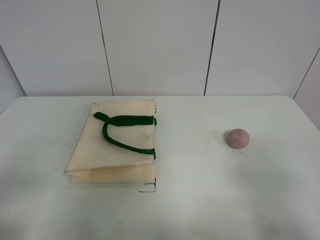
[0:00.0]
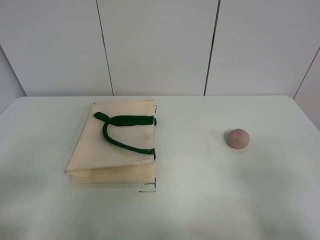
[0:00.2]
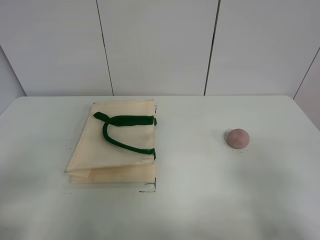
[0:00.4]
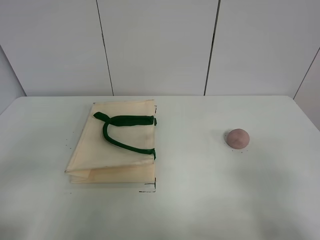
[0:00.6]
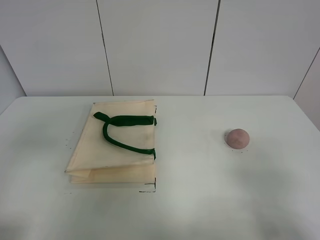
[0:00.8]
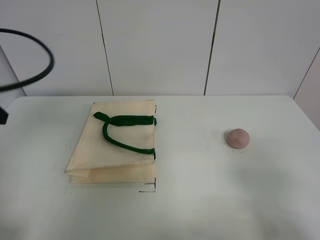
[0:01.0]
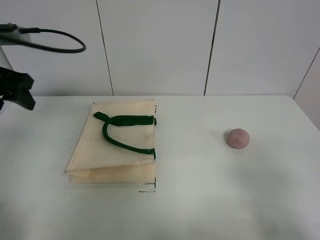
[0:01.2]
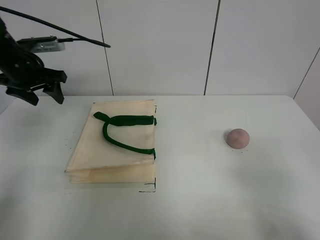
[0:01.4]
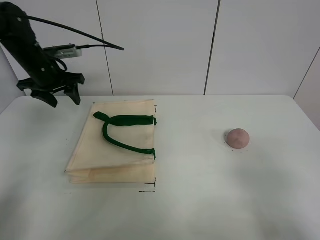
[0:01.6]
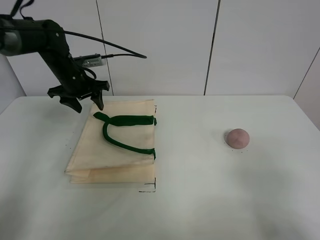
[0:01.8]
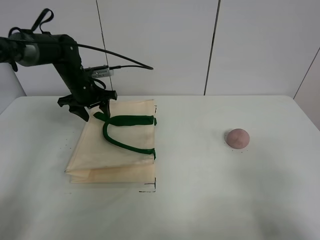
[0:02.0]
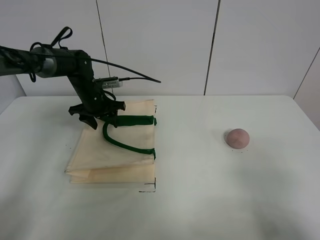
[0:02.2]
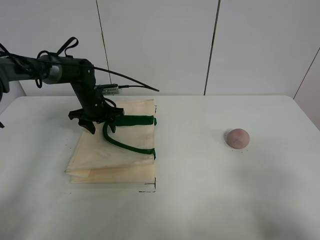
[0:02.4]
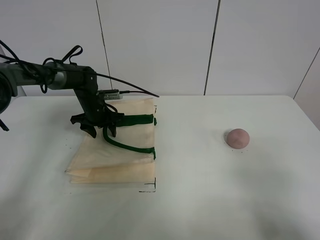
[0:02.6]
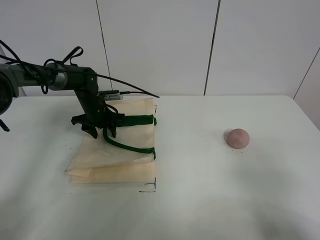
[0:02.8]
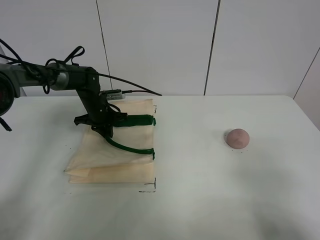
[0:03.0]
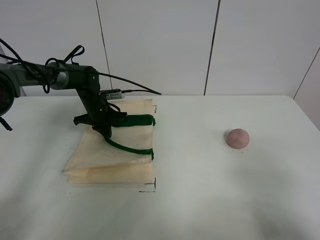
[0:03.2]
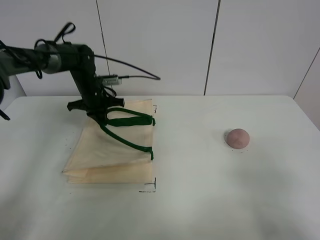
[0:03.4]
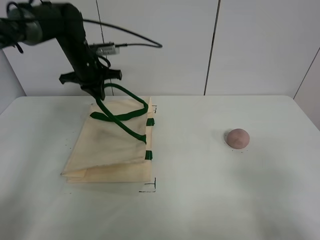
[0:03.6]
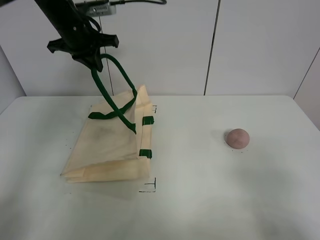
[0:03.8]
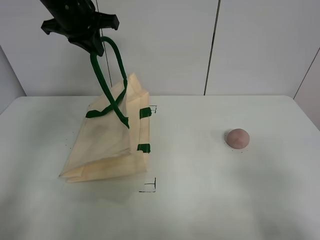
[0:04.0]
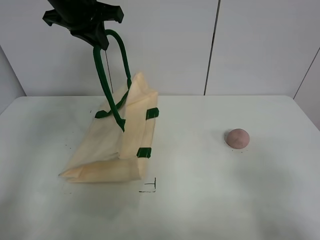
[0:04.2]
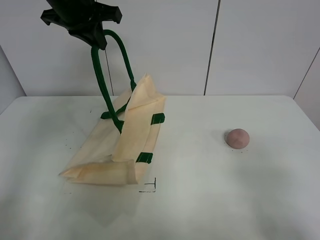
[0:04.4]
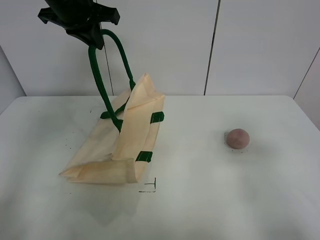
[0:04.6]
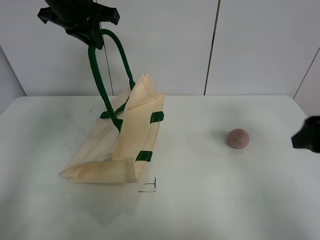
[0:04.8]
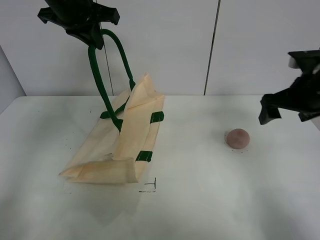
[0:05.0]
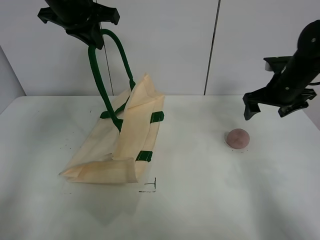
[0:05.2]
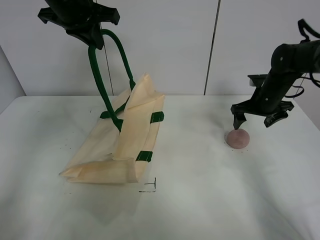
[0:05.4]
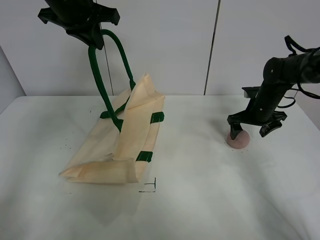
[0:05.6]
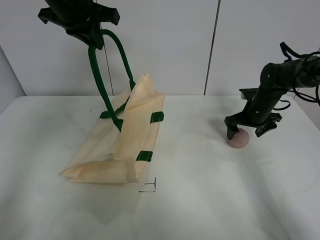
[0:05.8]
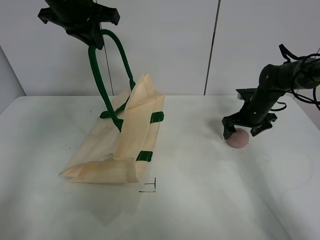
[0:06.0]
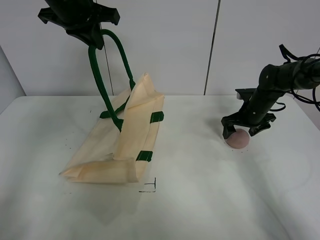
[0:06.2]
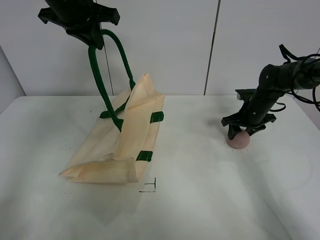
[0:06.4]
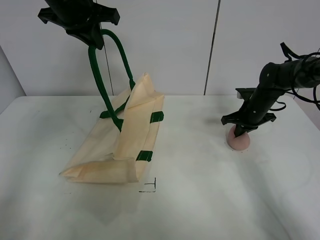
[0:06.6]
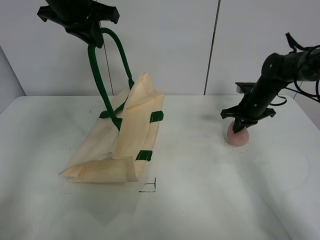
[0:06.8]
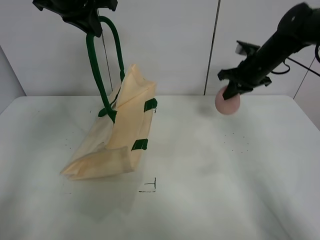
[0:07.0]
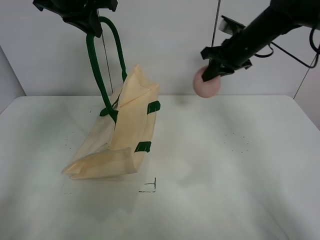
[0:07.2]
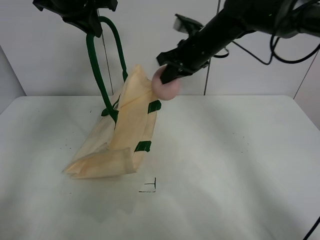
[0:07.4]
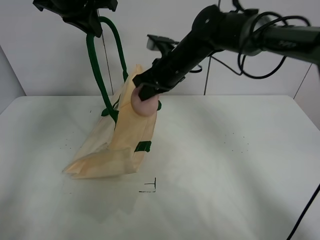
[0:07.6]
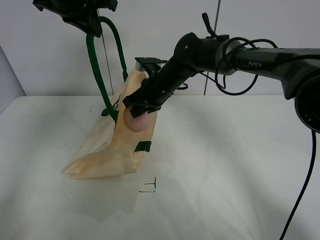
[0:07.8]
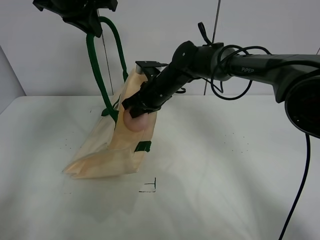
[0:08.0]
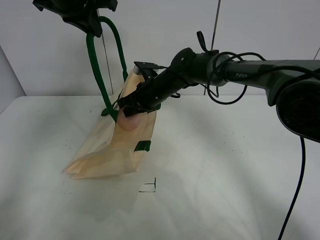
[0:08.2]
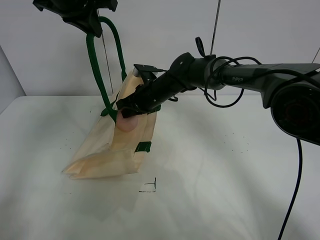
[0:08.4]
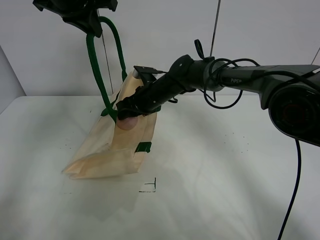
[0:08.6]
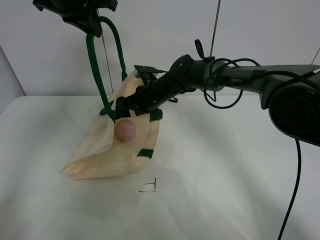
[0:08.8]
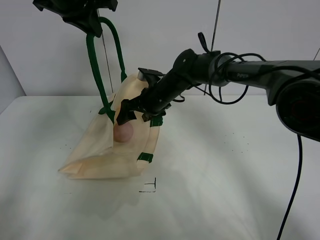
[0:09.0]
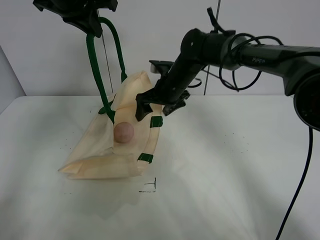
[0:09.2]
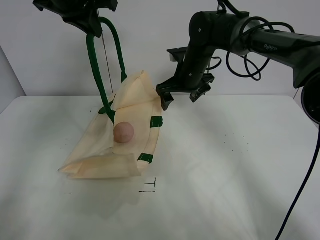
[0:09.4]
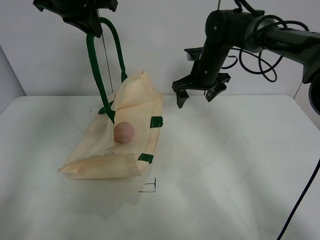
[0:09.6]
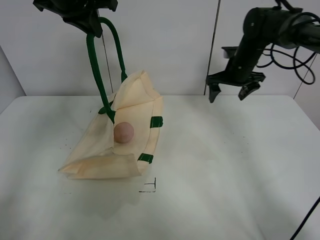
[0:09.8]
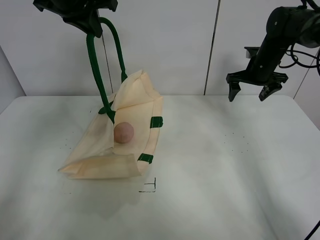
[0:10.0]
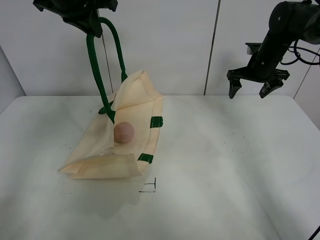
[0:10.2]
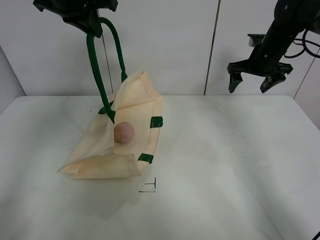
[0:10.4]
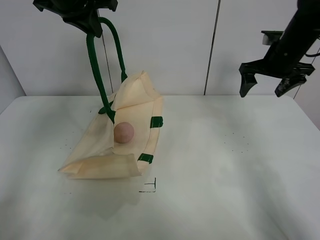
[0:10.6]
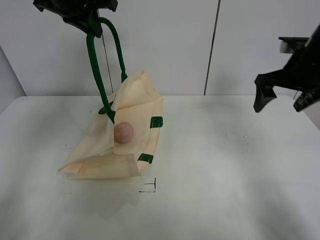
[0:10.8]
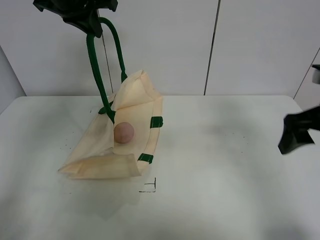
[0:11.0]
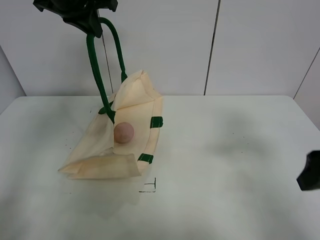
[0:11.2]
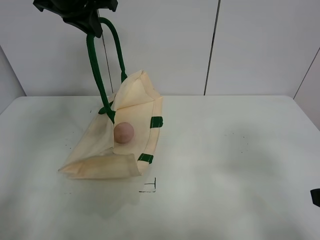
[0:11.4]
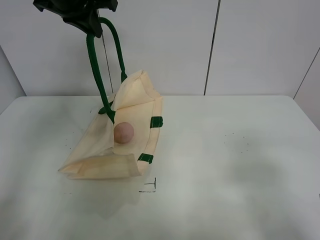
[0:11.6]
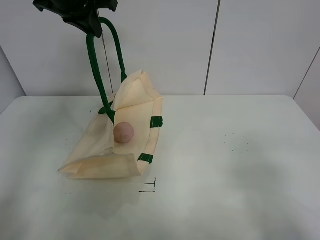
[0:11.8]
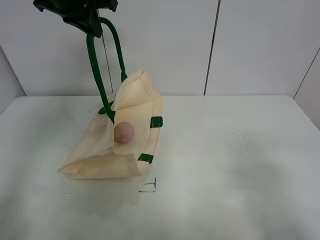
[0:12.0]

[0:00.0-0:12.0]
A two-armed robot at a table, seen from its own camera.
Task of the whole recording: open the white linen bag and put the peach in the bag.
Step, 0:00.0 to 0:04.4: Lift the handbag with left gripper.
Step, 0:04.6 to 0:06.6: Grasp the peach with right gripper.
Step, 0:06.8 to 0:09.2: Place the peach in the handbag with right gripper.
0:00.0 to 0:01.6: The left gripper moves forward, about 40 cm.
0:01.6 to 0:03.0: The left gripper goes some 15 cm downward and to the right, and closes up.
0:03.0 to 0:04.4: The left gripper shifts some 30 cm upward.
0:04.4 to 0:06.0: The right gripper moves forward, roughly 40 cm.
0:06.0 to 0:07.6: The right gripper is displaced to the left and upward by some 25 cm, and closes its fingers.
0:07.6 to 0:09.0: The right gripper travels downward by some 5 cm, and opens its fingers.
0:09.0 to 0:10.4: The right gripper shifts about 25 cm to the right.
0:10.4 to 0:12.0: The right gripper heads backward, covering some 40 cm.

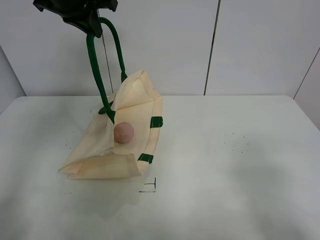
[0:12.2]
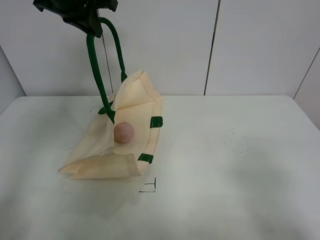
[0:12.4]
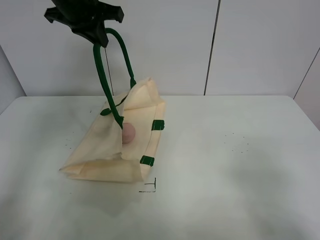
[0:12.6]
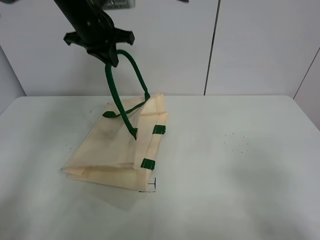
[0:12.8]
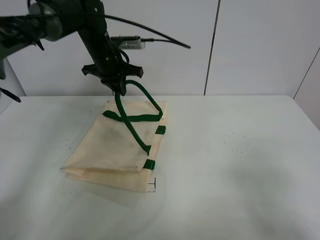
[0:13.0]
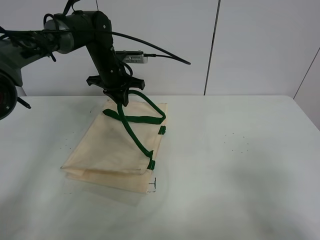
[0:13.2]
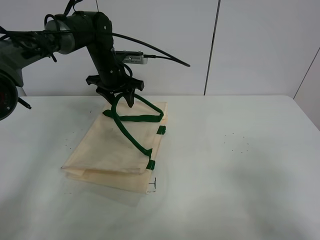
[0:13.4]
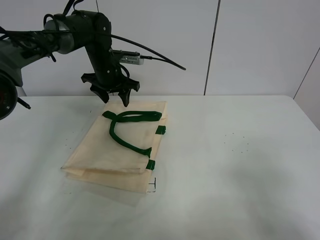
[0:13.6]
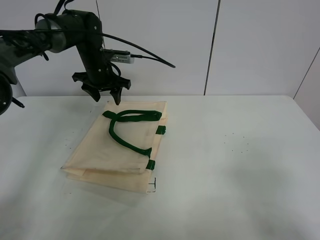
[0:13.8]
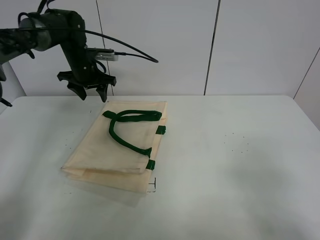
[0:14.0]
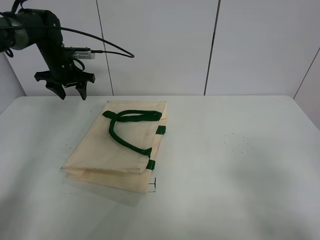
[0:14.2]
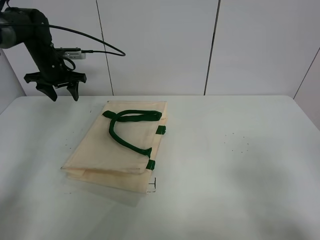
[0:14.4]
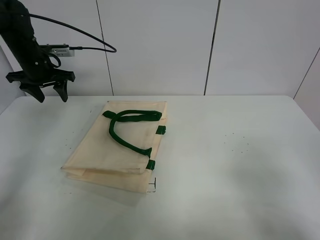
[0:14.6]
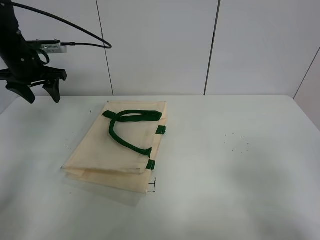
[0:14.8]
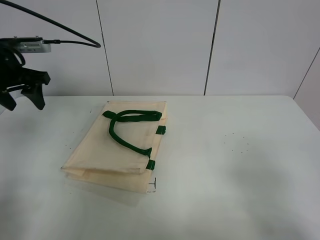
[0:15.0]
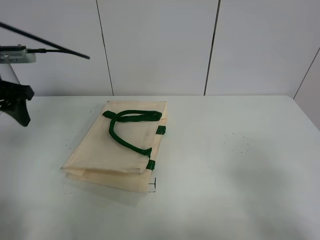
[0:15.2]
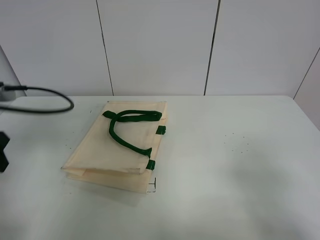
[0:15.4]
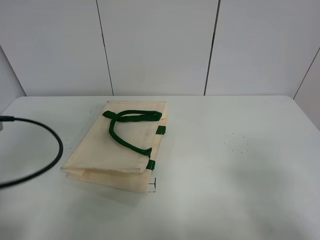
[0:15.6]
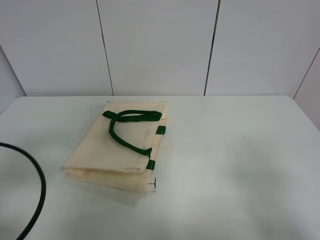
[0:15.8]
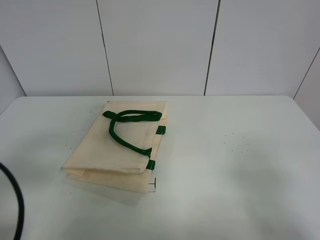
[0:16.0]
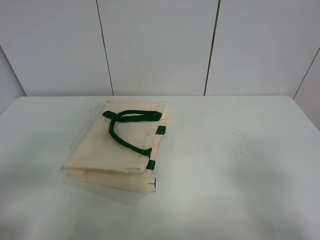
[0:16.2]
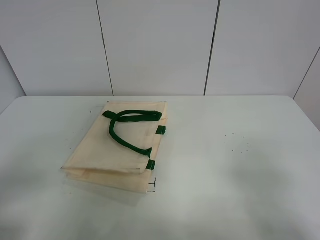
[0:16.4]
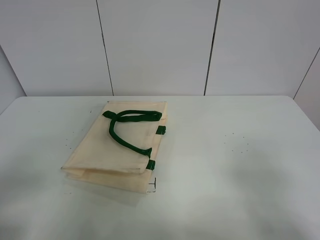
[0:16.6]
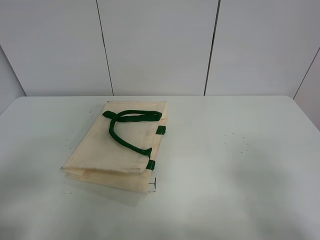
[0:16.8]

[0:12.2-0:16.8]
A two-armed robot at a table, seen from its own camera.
Task of the whole recording: open the white linen bag and put the peach in the bag.
0:12.2 to 0:13.8: The left gripper travels downward and forward by approximately 20 cm, and opens its fingers.
0:13.8 to 0:15.2: The left gripper shifts approximately 25 cm backward, to the left and upward.
0:15.2 to 0:16.8: The left gripper travels backward by some 30 cm.
